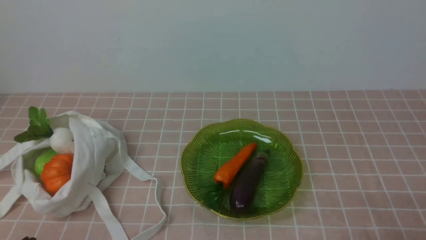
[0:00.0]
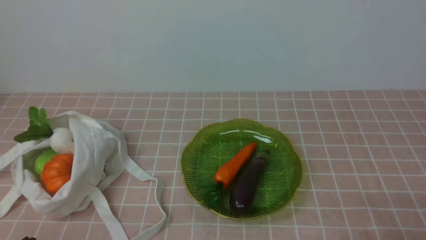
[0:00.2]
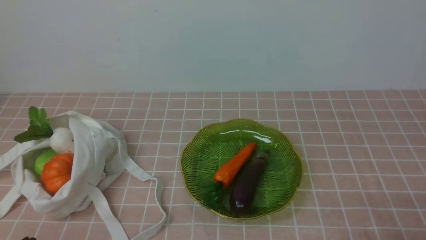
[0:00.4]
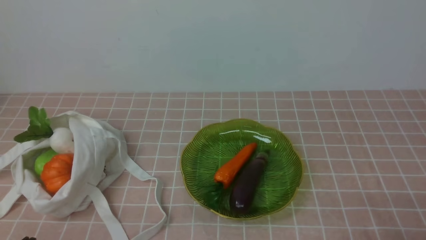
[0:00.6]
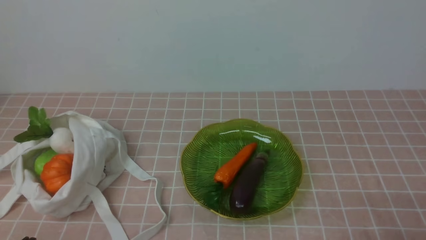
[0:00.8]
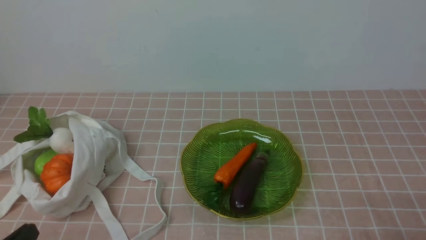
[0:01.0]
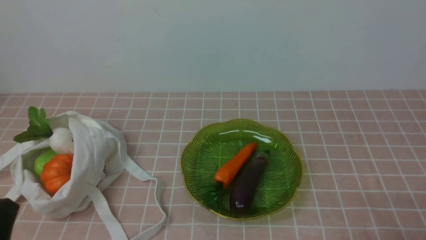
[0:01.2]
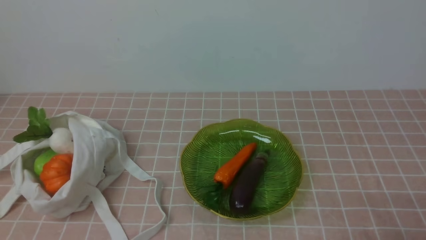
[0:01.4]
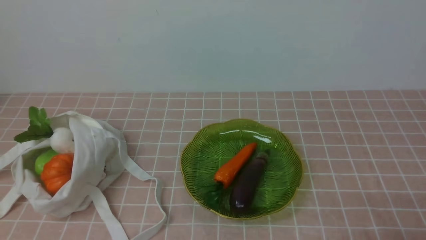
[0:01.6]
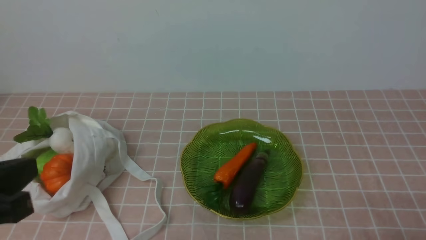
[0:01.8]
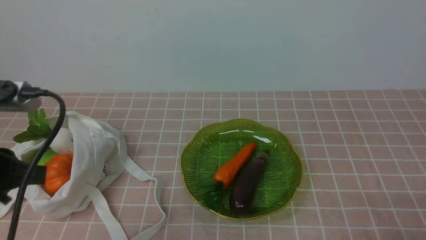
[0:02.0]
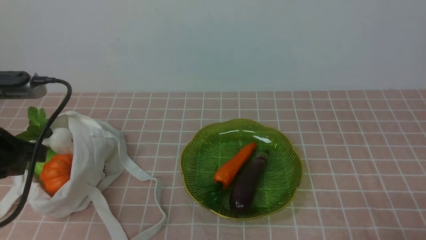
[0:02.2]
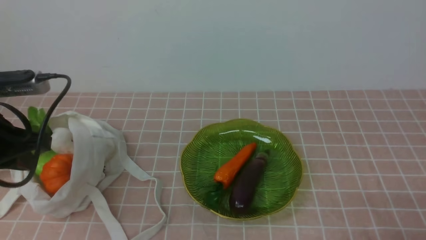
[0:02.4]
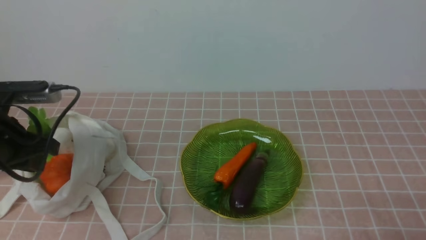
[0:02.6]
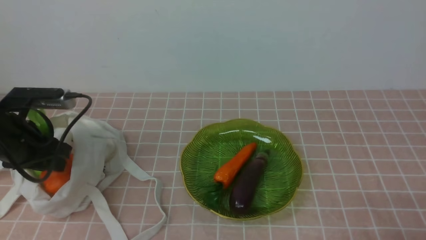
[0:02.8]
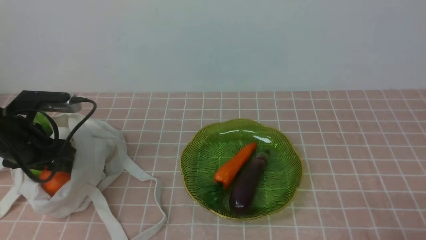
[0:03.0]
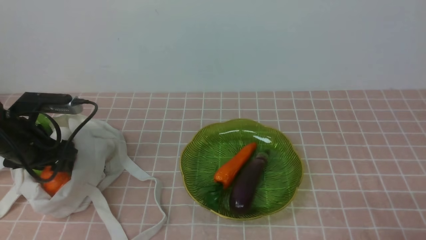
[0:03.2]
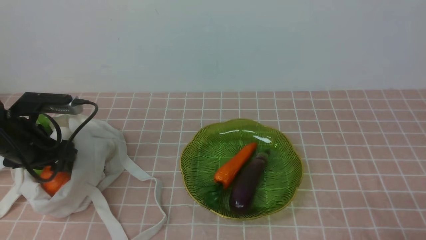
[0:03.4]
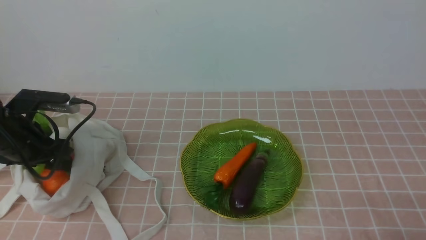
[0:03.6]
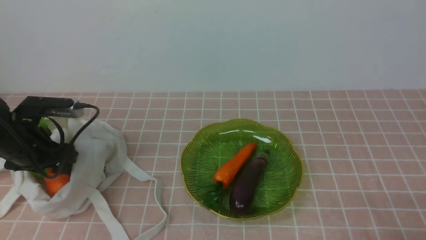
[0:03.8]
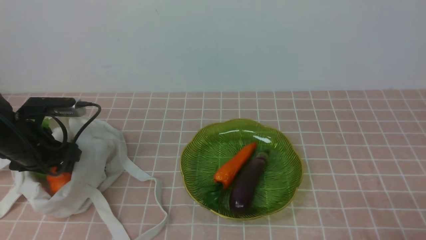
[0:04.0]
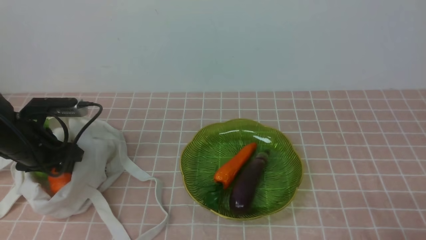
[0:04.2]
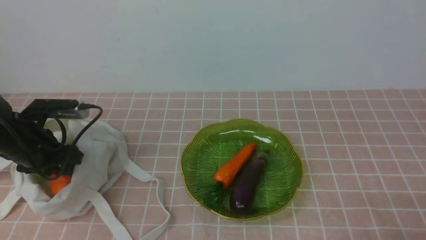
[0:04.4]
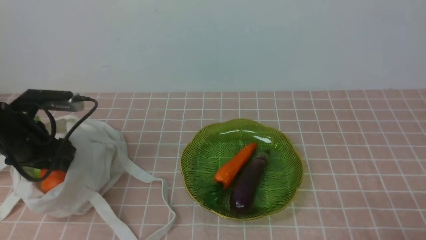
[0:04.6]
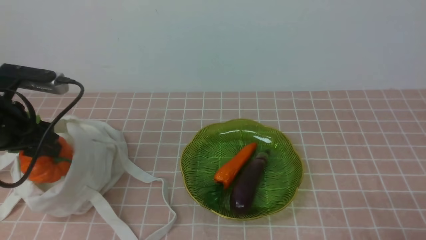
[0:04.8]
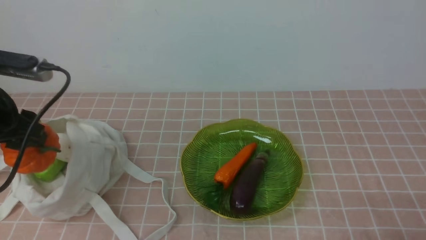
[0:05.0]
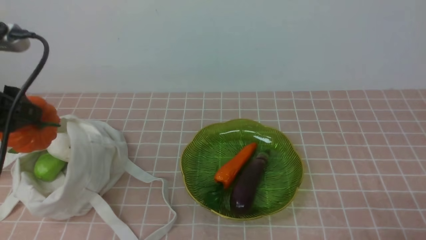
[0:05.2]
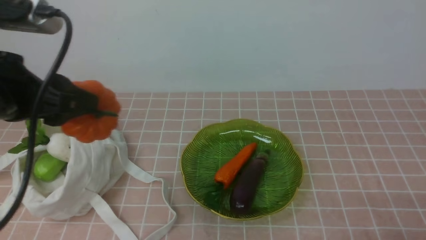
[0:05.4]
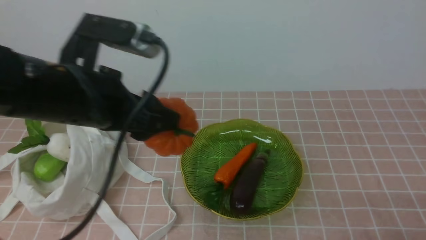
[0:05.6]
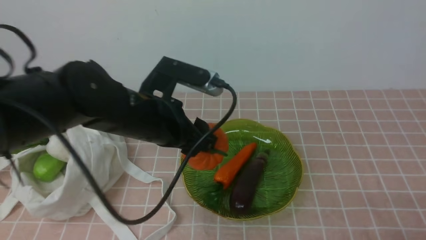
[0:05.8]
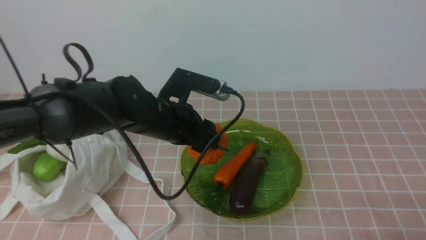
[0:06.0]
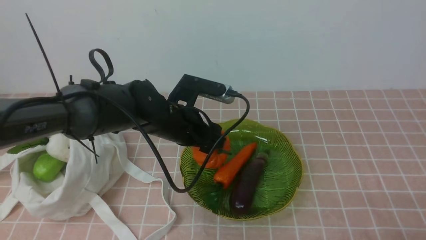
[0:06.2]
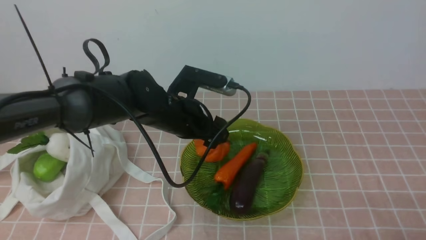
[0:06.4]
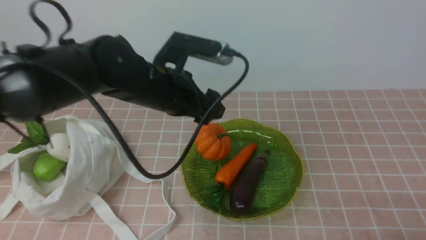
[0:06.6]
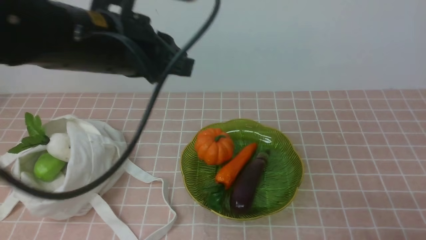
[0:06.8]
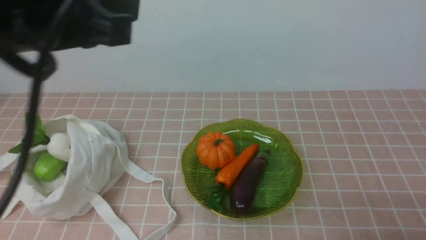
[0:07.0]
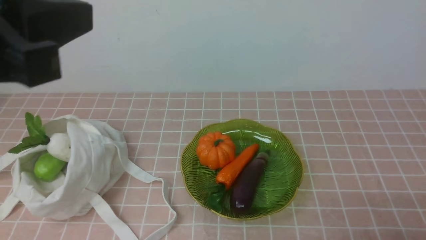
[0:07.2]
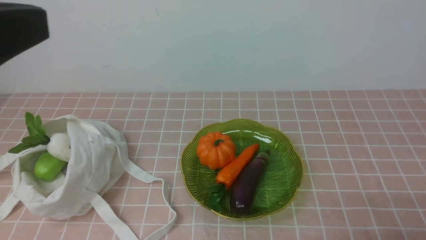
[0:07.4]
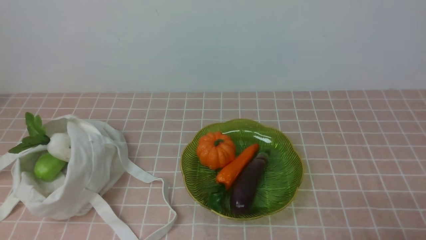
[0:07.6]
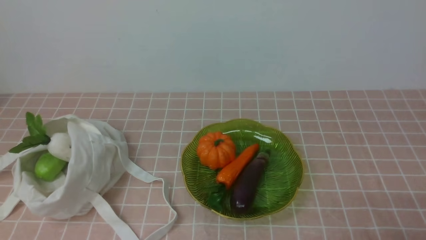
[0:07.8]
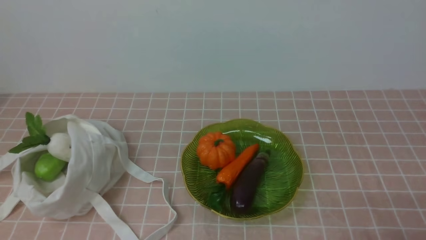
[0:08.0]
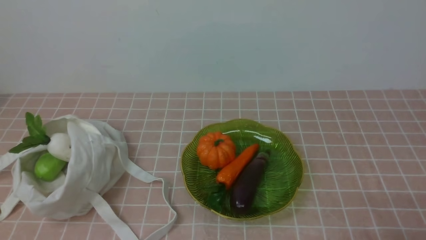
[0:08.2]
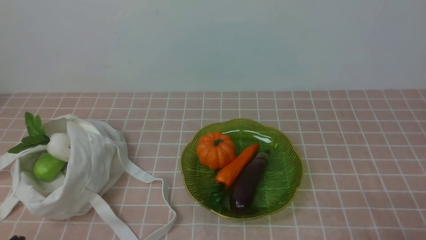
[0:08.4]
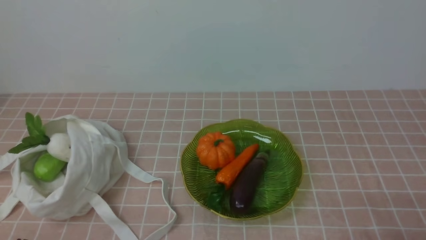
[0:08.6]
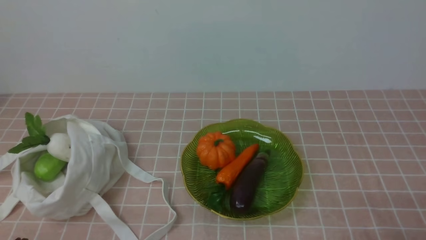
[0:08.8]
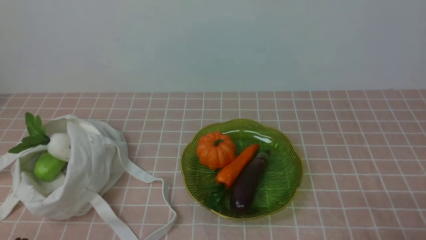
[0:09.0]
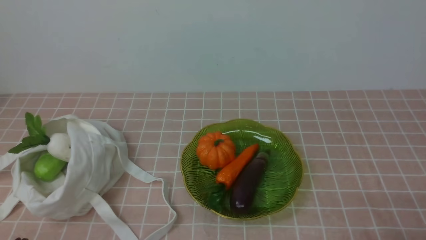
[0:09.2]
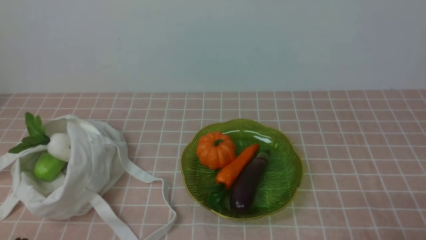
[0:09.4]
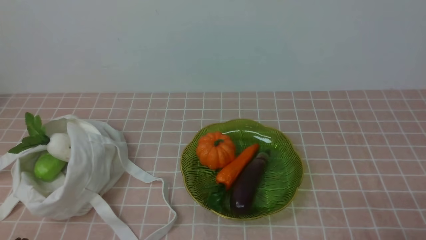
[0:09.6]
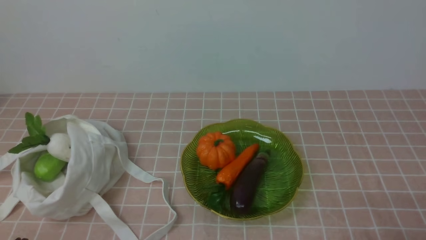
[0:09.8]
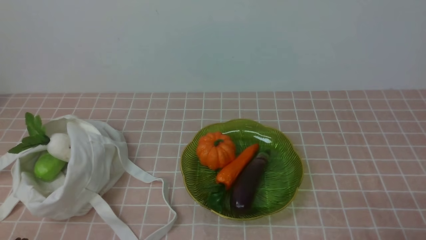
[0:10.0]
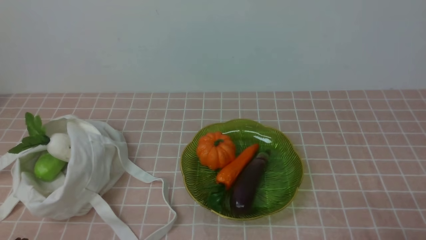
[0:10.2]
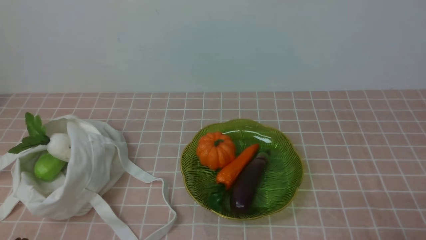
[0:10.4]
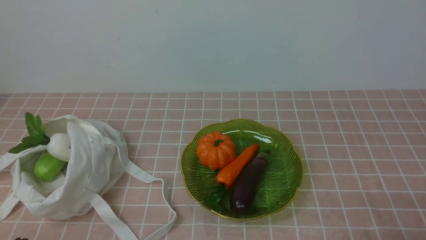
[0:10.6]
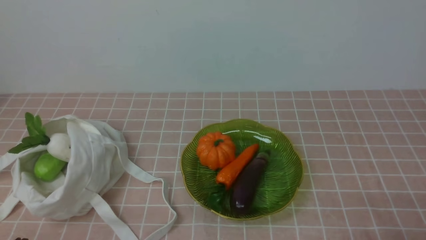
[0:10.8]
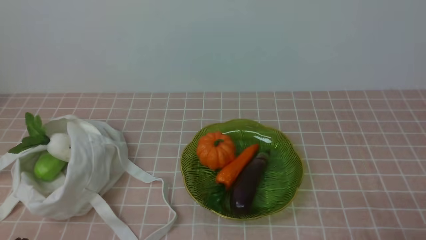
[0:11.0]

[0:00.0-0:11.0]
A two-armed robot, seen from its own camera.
Task of the whole recording: take vegetables from bag on pink coffee tablecloth place on plate.
Step, 0:00.0 to 0:04.4: Grasp the pumpkin with left gripper.
Step, 0:04.6 to 0:06.6: Place the pumpkin on the plate with left gripper.
0:01.6 to 0:03.2: The left gripper goes roughly 25 cm forward, and opens its fingers.
0:03.2 to 0:04.8: The grippers move only a little.
0:04.8 to 0:06.2: The left gripper goes about 20 cm to the right.
0:06.2 to 0:07.8: The left gripper goes some 40 cm backward, upward and to the left, and closes up.
0:07.8 to 0:09.4: The left gripper shifts roughly 30 cm downward.
0:09.4 to 0:11.0: The two grippers keep their place.

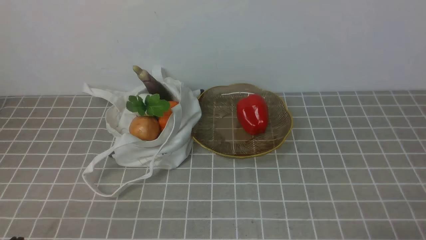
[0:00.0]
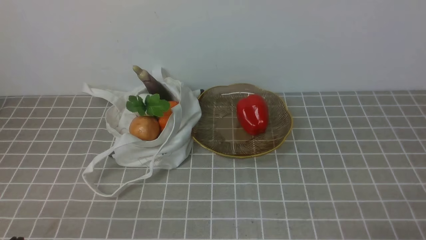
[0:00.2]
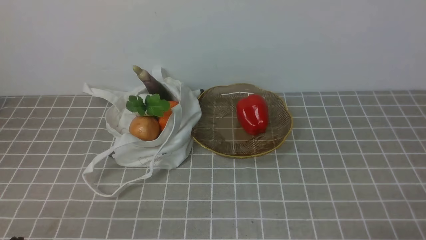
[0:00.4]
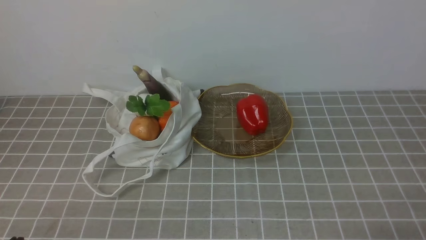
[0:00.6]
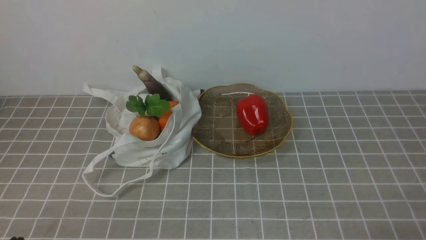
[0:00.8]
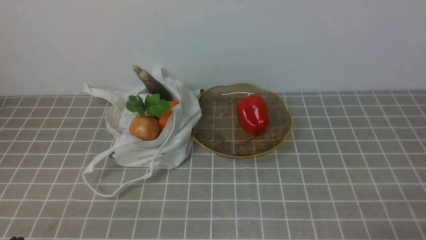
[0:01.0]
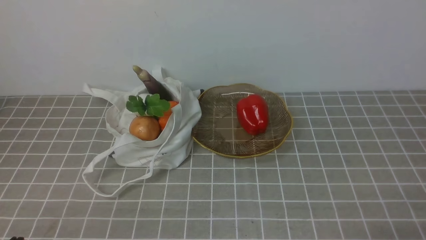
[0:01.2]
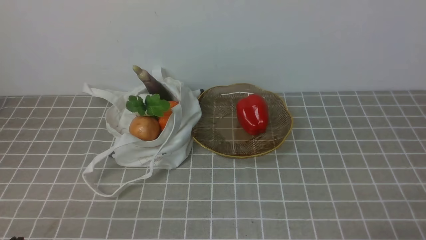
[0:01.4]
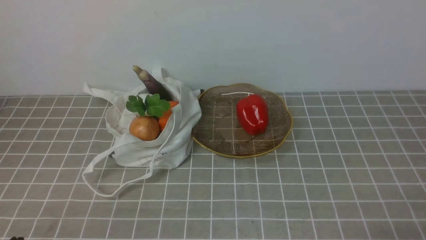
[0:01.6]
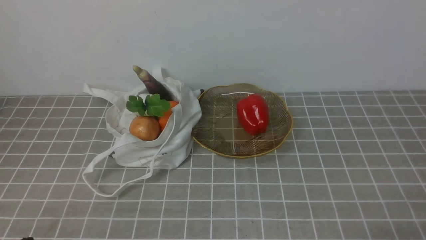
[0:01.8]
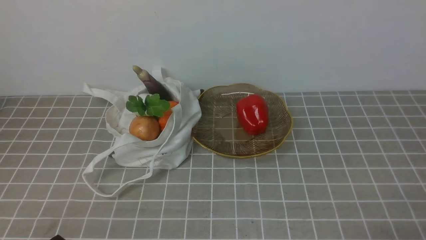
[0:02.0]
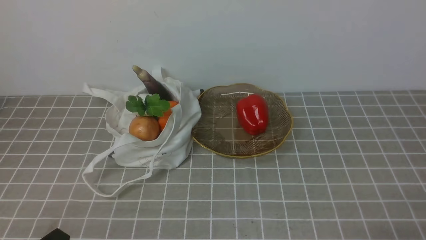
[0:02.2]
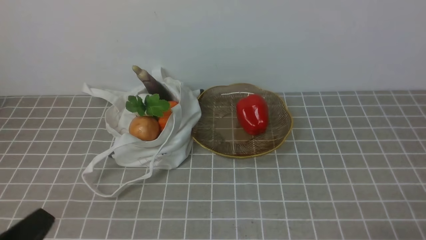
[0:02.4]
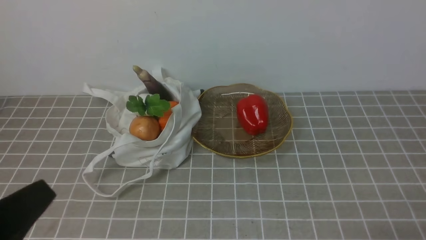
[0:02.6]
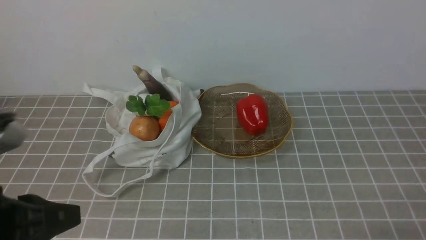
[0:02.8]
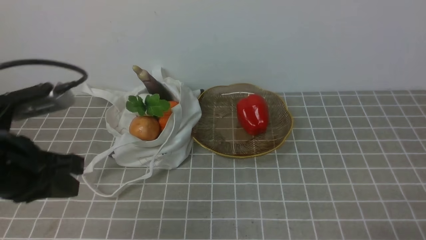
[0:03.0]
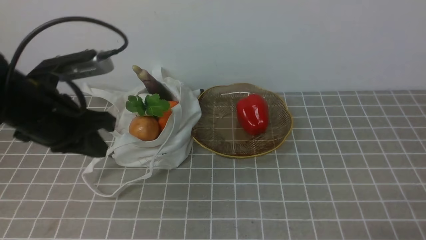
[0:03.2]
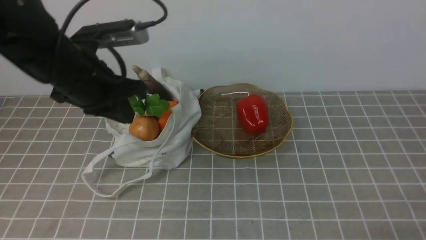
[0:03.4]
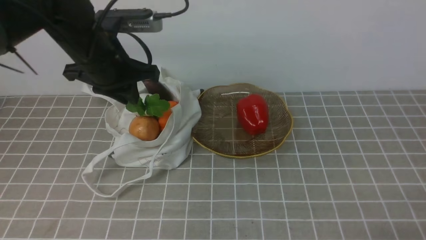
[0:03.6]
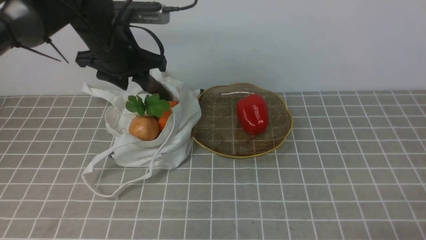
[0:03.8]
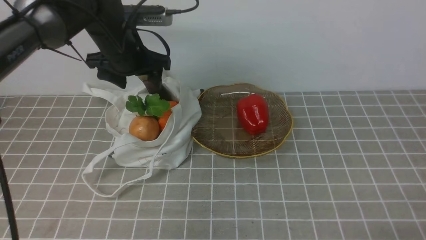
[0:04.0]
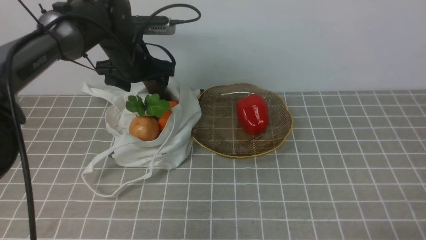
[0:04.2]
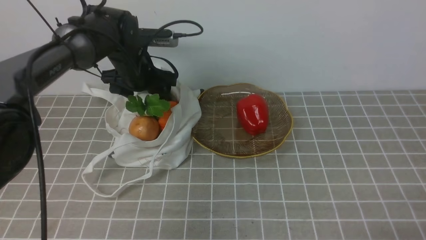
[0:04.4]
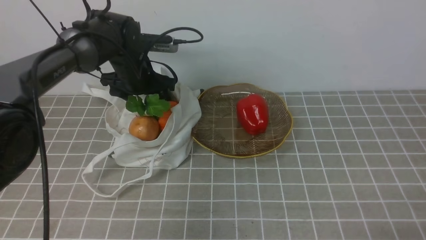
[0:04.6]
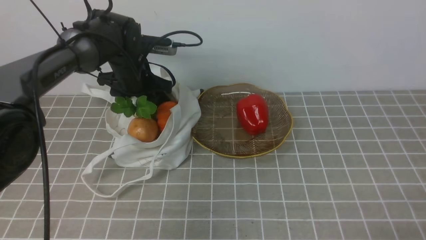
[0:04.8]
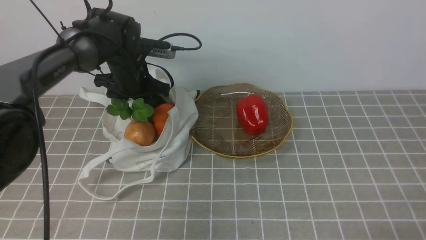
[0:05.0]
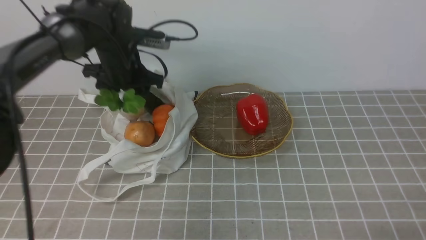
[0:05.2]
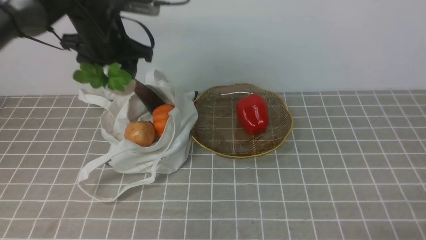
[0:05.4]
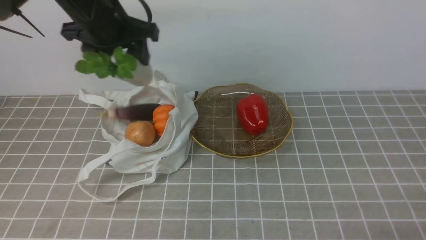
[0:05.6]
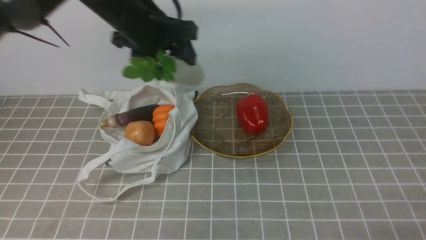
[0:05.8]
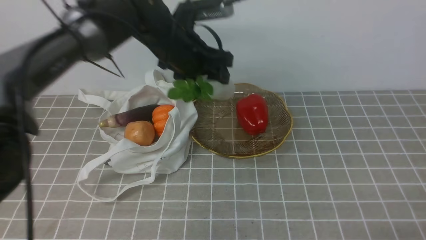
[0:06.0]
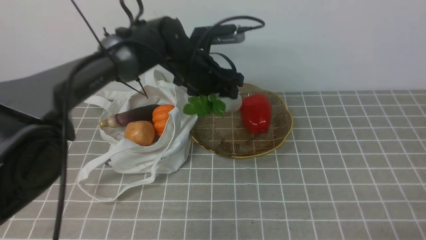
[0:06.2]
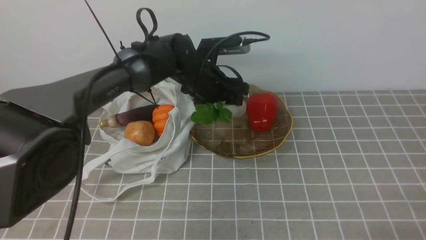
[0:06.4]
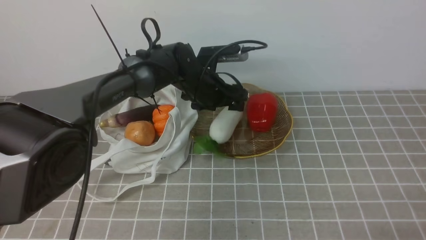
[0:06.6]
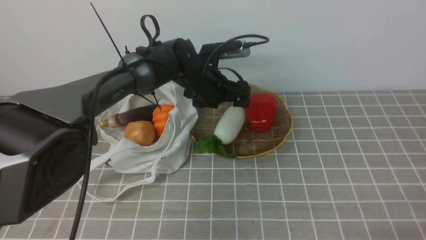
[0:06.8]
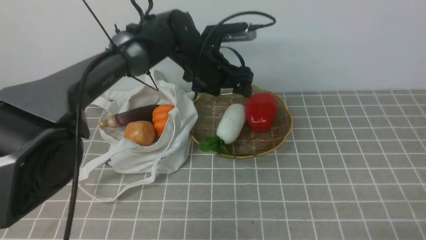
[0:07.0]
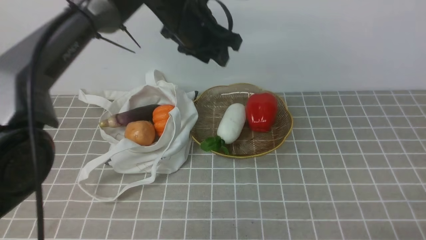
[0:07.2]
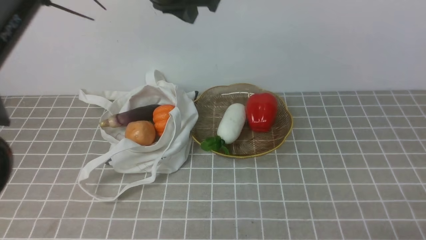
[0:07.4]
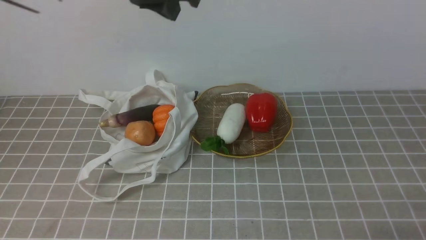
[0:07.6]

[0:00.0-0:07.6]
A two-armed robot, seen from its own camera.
Task of the whole recording: take vegetables from bag on grey coffee tablecloth place on plate.
Step, 0:00.0 to 0:04.8: Grasp the radish with left gripper.
Step, 0:05.0 to 0:07.0: Place the radish on the plate with left gripper.
0:01.6 to 0:03.0: The left gripper travels upward and forward by some 15 cm.
0:03.0 to 0:04.6: The left gripper goes about 30 cm forward, and opens.
0:04.6 to 0:06.0: The left gripper goes some 10 cm upward and to the right.
0:06.0 to 0:07.6: The left gripper moves upward, some 10 cm, and closes its fingers.
